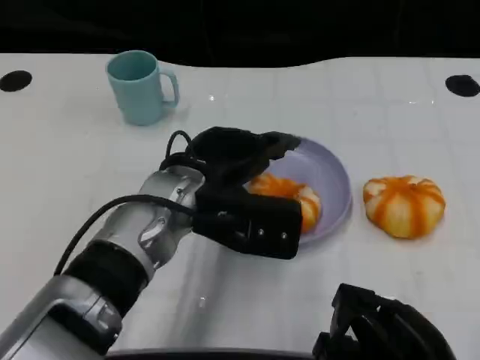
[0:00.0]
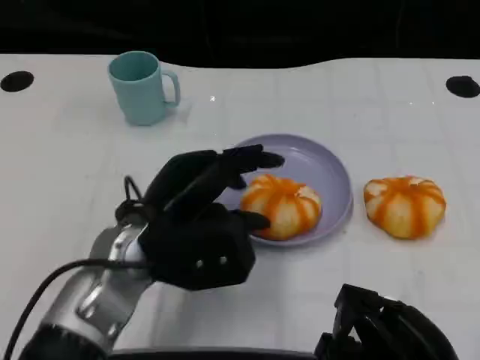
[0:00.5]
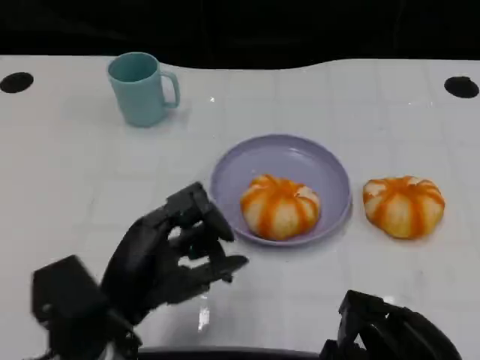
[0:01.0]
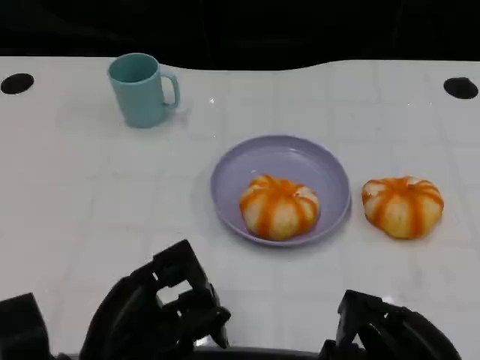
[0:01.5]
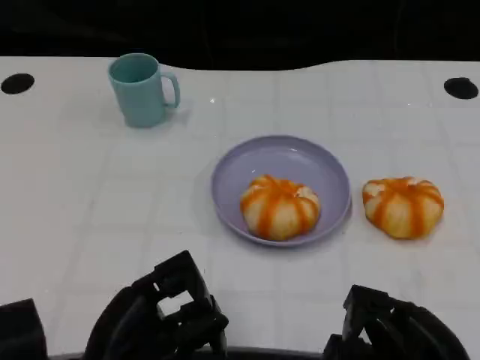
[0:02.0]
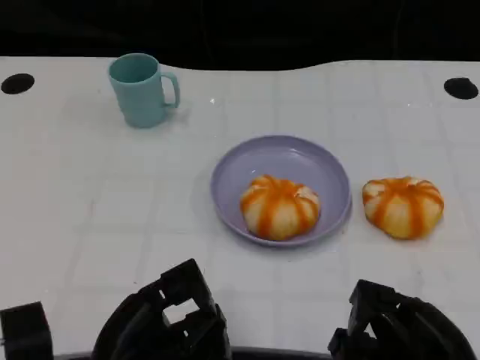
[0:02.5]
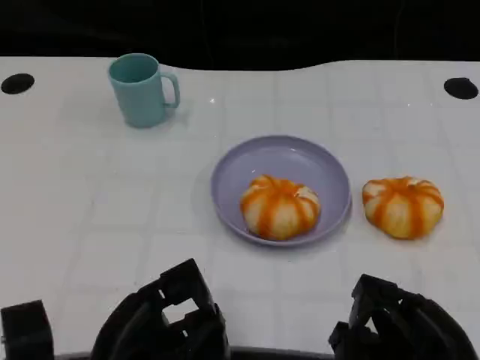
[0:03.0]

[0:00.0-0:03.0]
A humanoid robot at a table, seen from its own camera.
Task of the whole recording: Grasp the bread from the table and place it into the plate.
0.0 to 1.5 s: The left hand travels backward, to the left and downward by roughly 20 cm.
1.5 to 3.0 s: There are only small adjustments of the hands.

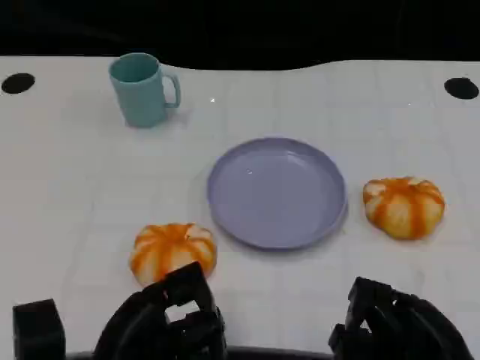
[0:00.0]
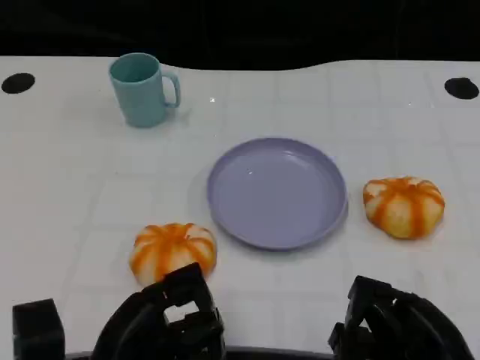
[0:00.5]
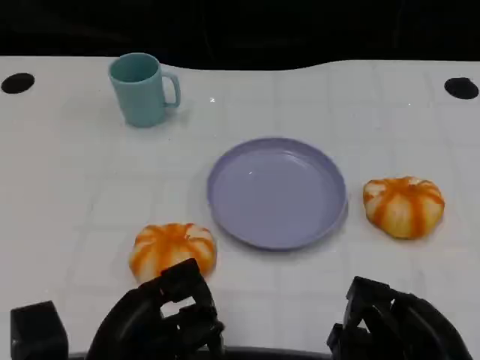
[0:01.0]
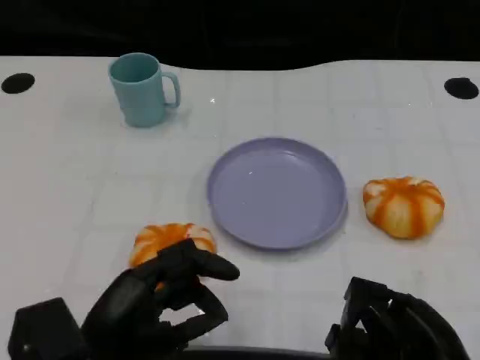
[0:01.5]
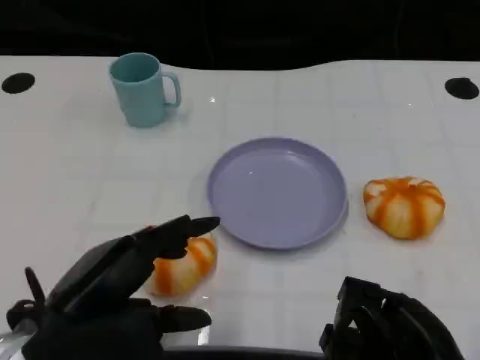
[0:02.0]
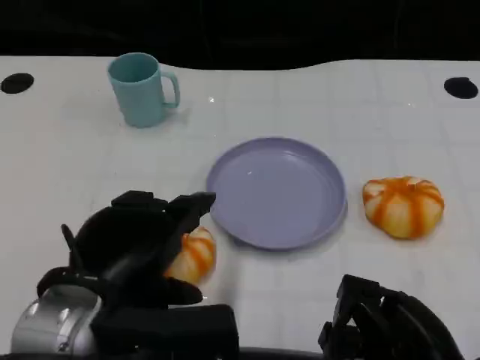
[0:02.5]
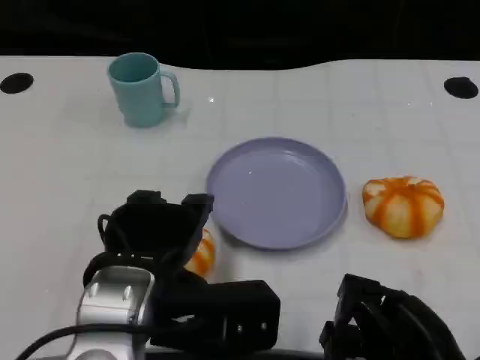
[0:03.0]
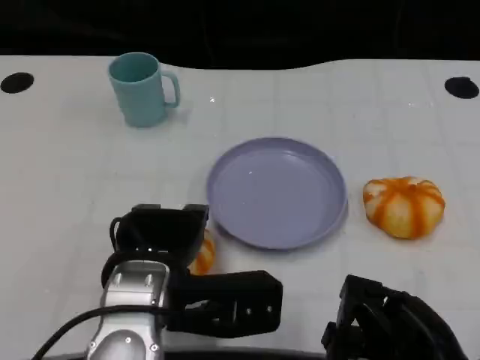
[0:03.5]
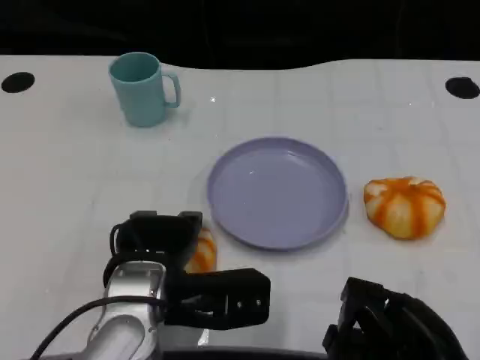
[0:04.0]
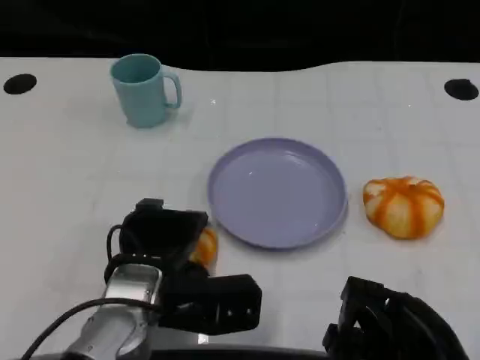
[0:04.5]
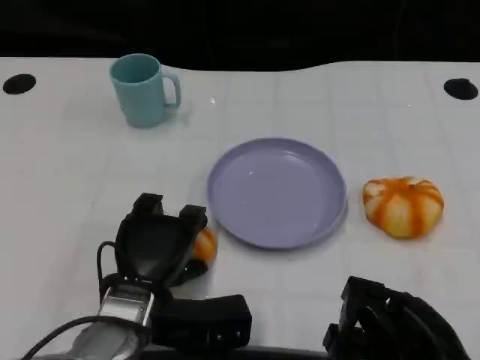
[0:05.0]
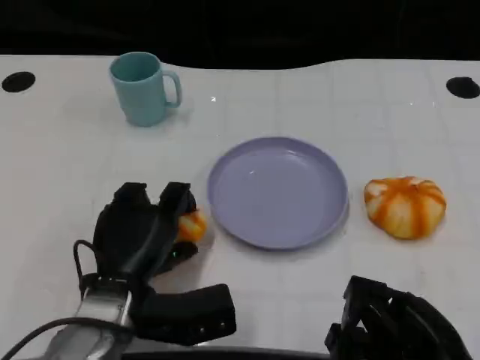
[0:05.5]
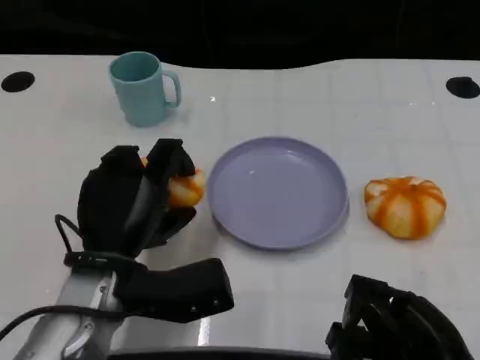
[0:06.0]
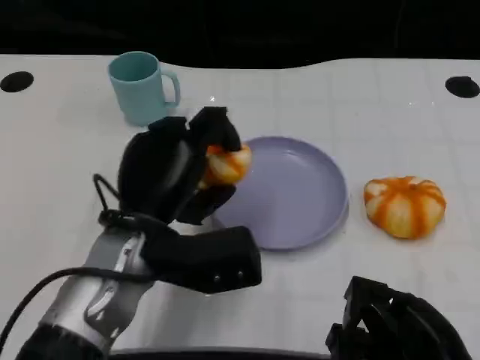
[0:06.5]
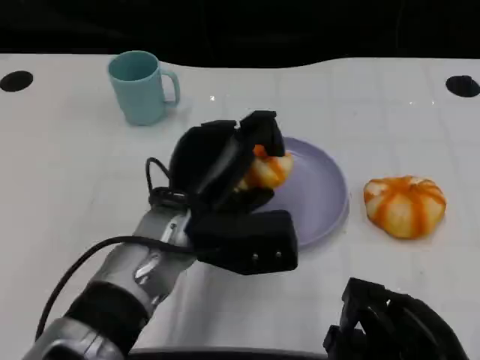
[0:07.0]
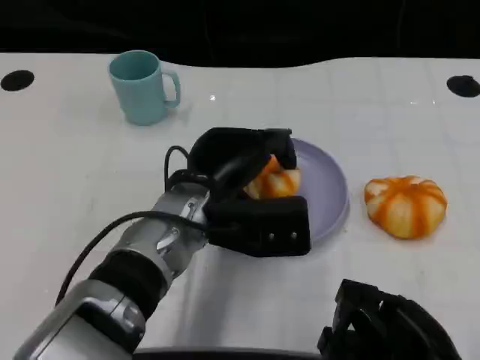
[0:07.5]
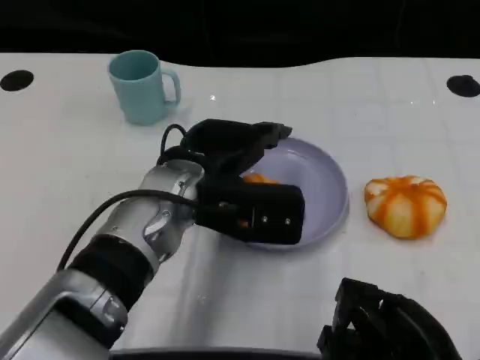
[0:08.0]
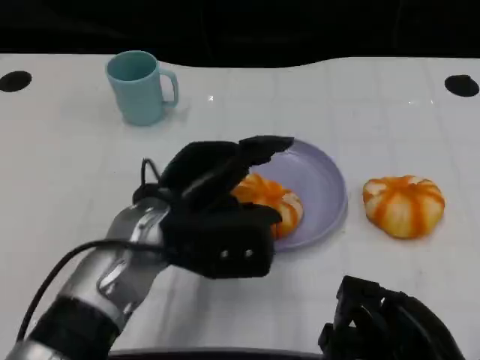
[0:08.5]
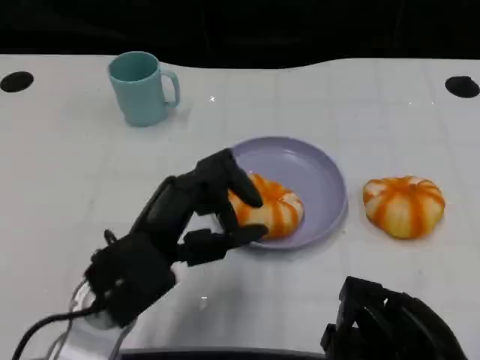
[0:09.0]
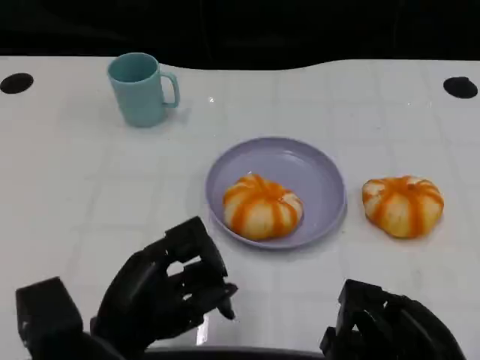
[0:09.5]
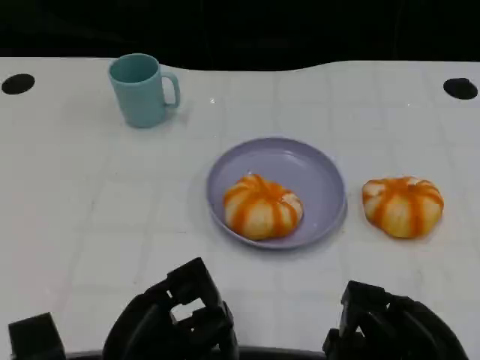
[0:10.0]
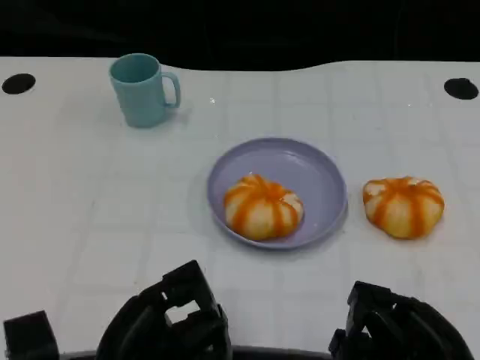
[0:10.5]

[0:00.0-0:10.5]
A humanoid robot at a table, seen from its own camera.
Task of the whole recording: Grasp the bread from the table and place it into the plate.
0.0 to 2.0 s: The left hand heads upward, covering approximately 10 cm.
2.0 to 4.0 s: The left hand heads to the right, forward and downward, covering approximately 10 cm.
8.5 to 10.5 s: The left hand is displaced backward, downward and to the left by some 15 cm.

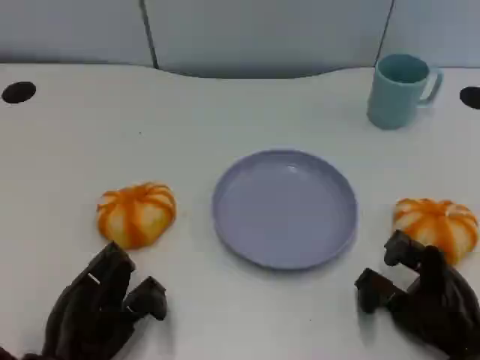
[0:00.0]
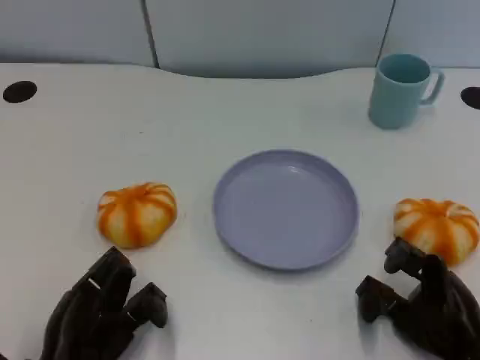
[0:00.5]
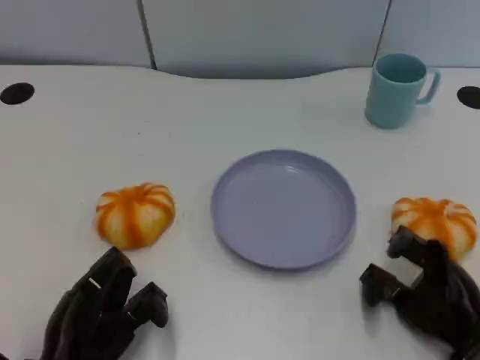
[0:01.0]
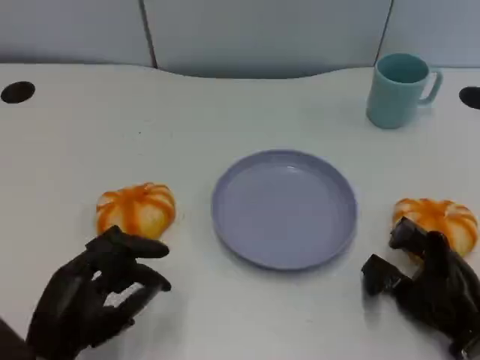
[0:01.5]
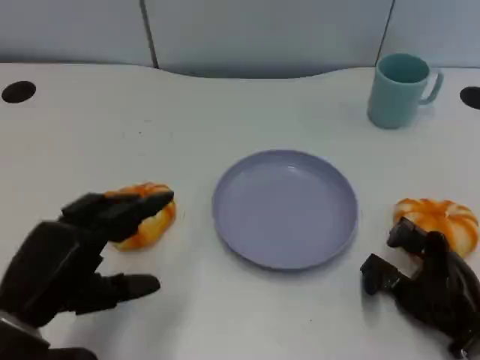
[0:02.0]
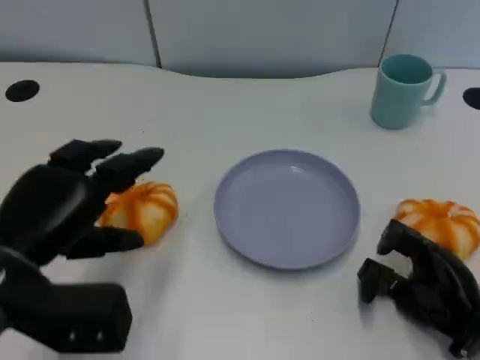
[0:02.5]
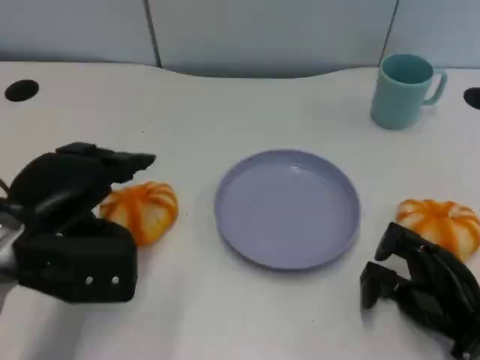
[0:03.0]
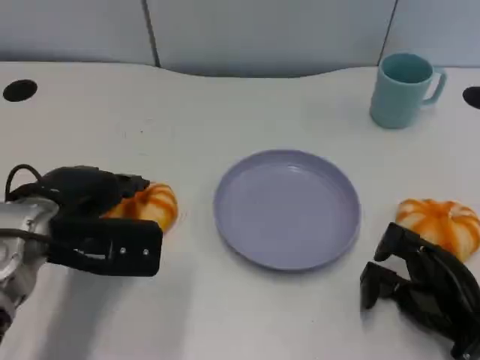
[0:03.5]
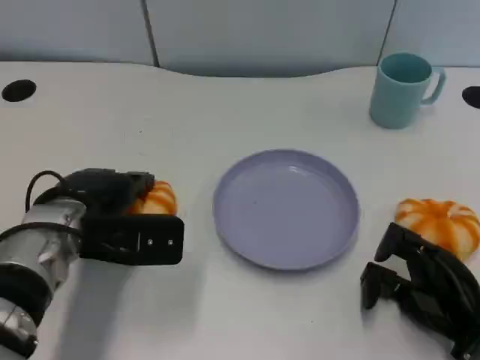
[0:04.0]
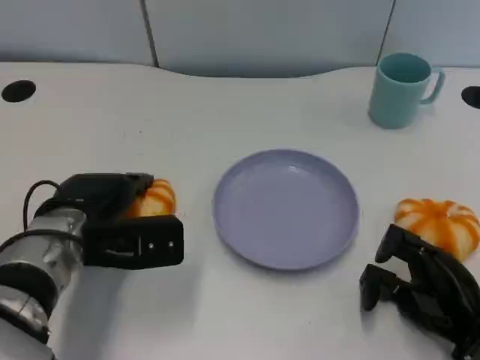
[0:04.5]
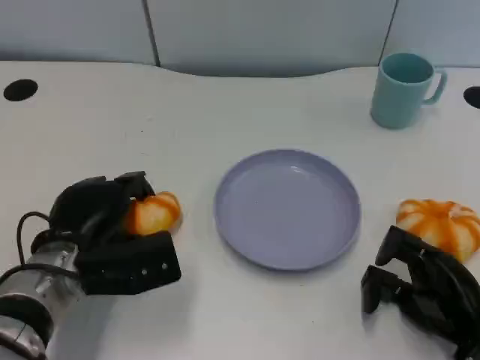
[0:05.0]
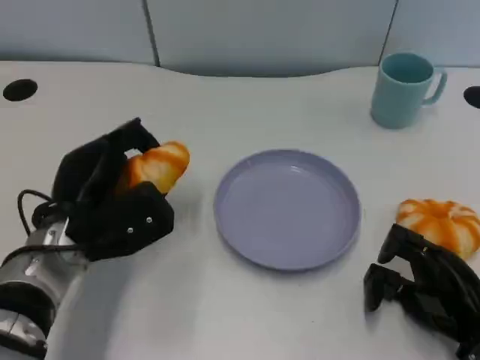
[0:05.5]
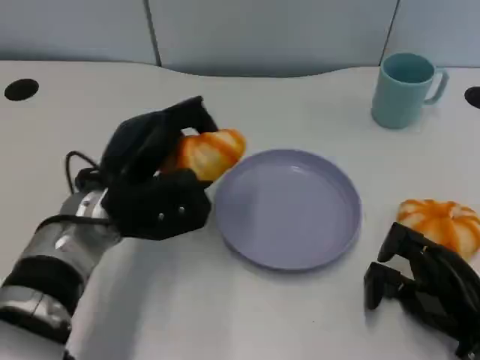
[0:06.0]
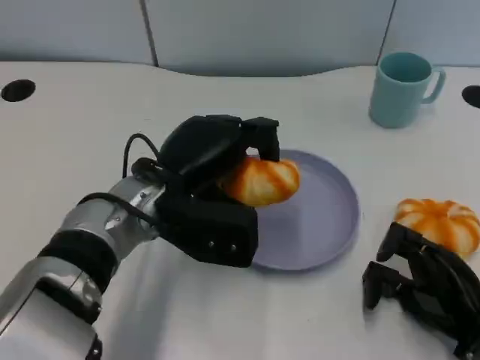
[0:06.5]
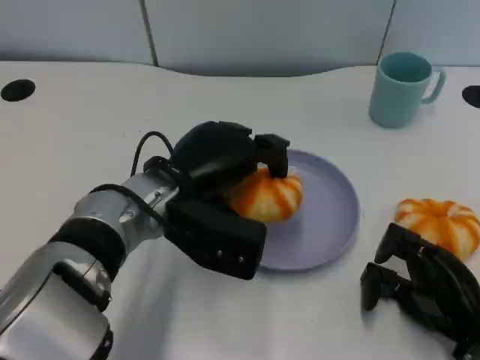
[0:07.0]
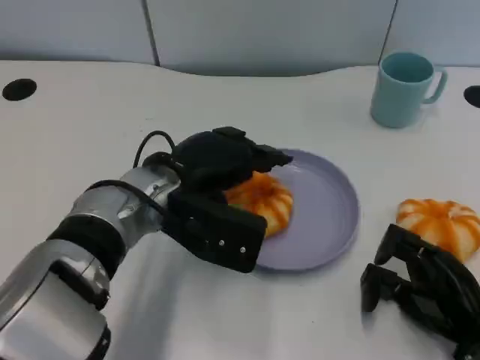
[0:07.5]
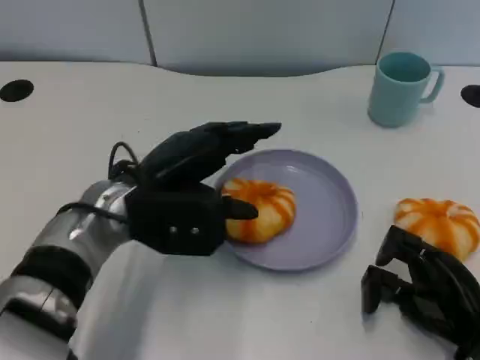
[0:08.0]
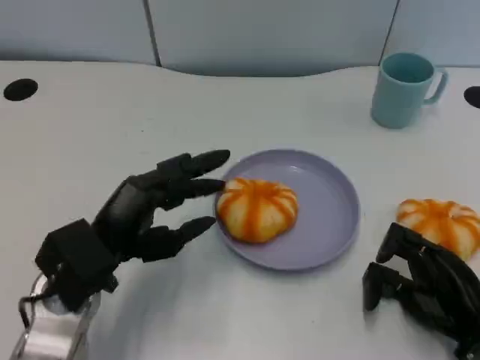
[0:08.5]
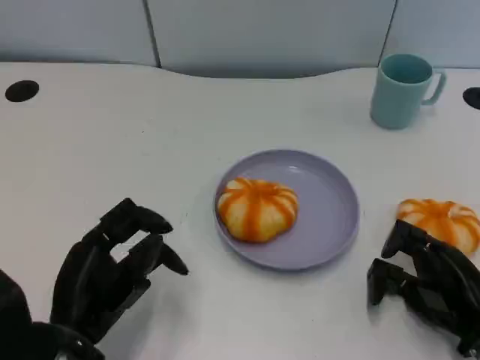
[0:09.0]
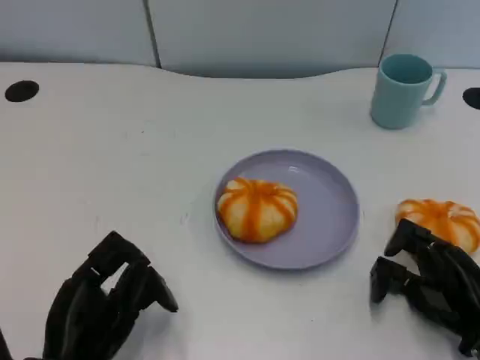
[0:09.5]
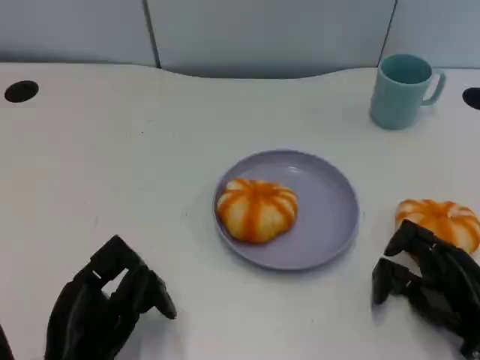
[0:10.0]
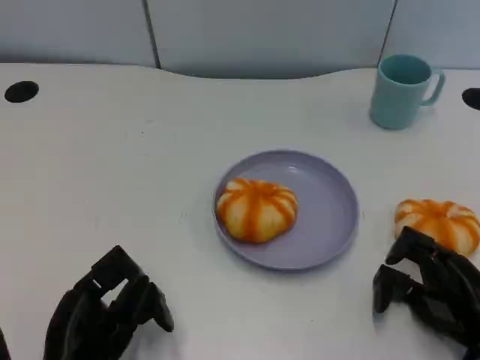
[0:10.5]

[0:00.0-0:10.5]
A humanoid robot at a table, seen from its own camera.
Task of the whole recording: Grasp the bread from the table and place it into the plate.
0.0 to 2.0 s: The left hand travels upward by roughly 10 cm.
2.0 to 4.0 s: The left hand travels forward and to the right by approximately 15 cm.
4.0 to 6.5 s: The left hand is displaced to the right by approximately 10 cm.
6.5 to 8.5 s: The left hand is displaced to the left and backward by about 10 cm.
8.5 to 10.5 s: The left hand moves backward and downward, about 10 cm.

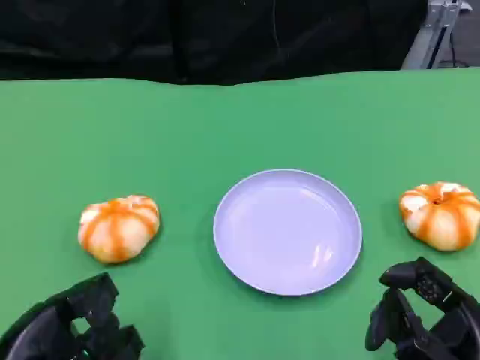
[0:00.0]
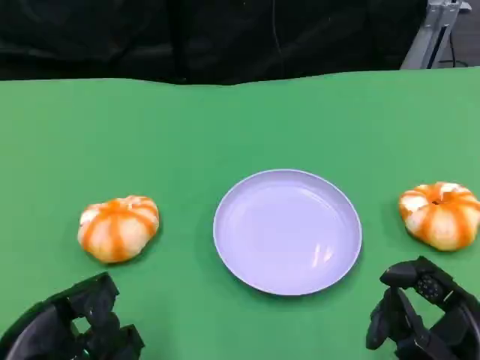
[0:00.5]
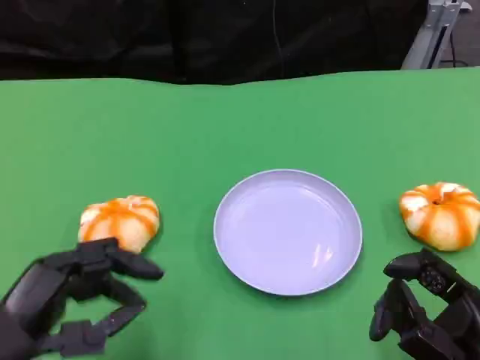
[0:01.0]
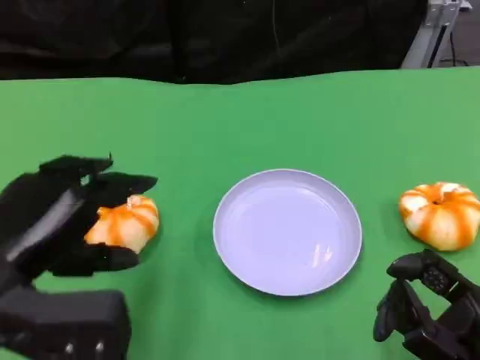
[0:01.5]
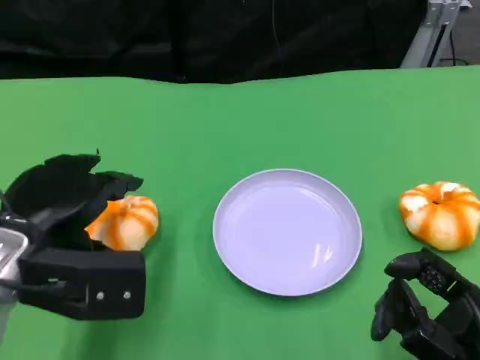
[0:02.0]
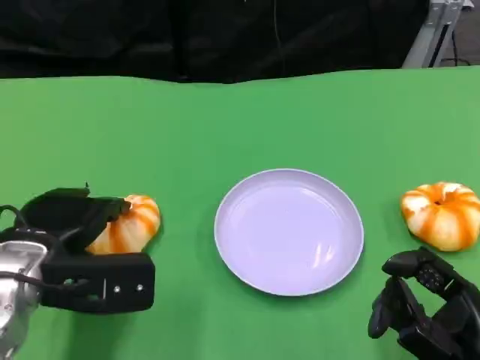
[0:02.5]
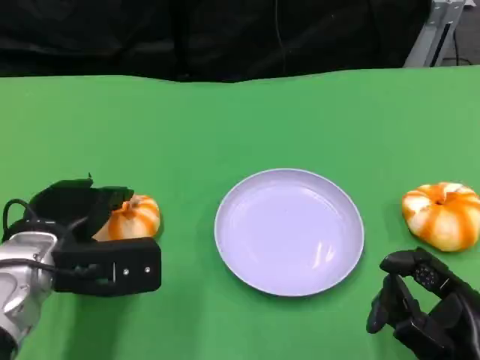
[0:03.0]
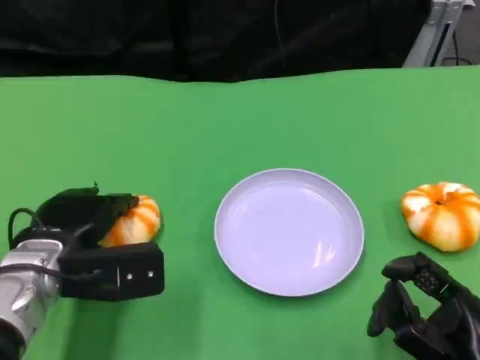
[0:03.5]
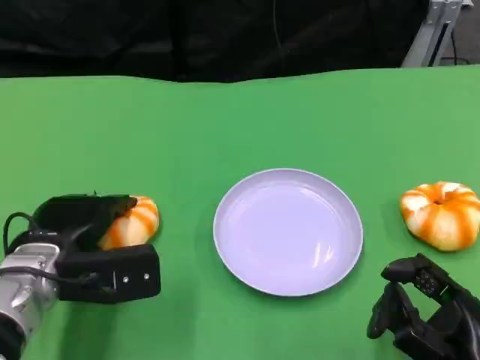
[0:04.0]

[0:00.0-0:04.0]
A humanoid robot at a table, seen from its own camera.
Task of the whole recording: Grasp the bread from the table and place it into the plate.
0.0 to 2.0 s: The left hand heads forward and upward, covering some 10 cm.
2.0 to 4.0 s: The left hand is displaced downward by approximately 10 cm.
